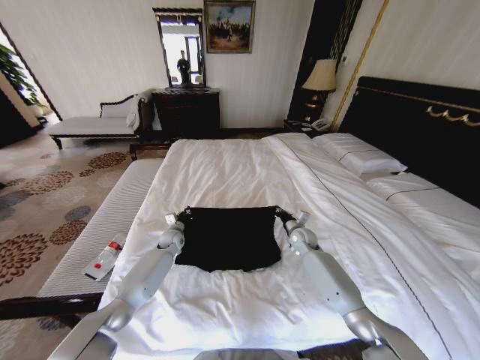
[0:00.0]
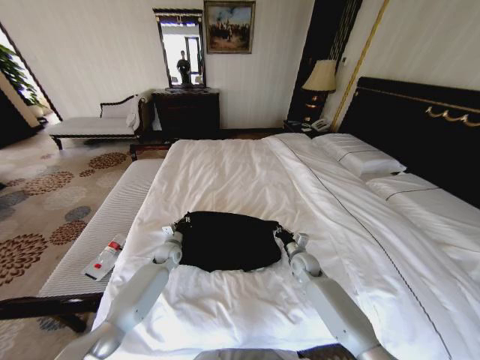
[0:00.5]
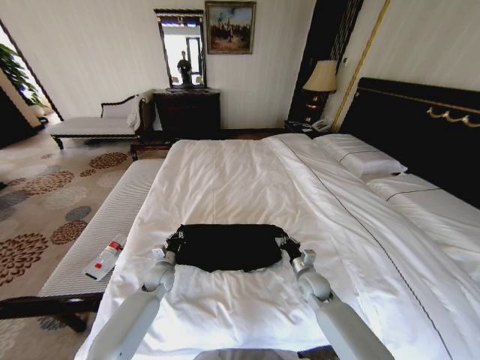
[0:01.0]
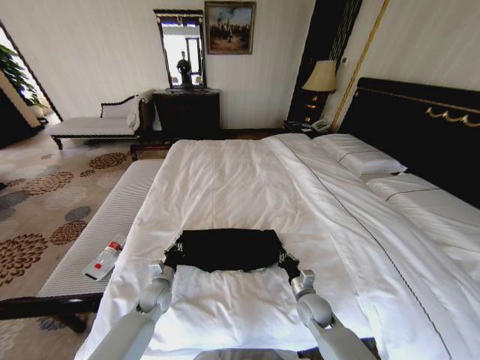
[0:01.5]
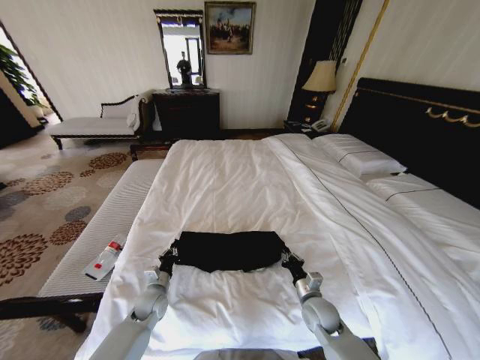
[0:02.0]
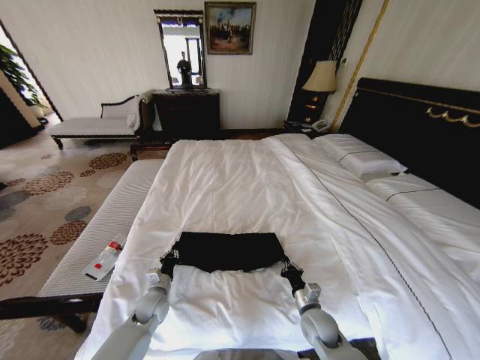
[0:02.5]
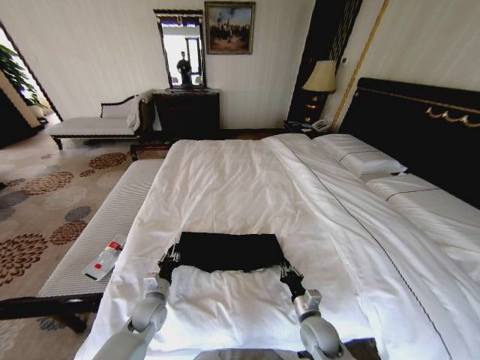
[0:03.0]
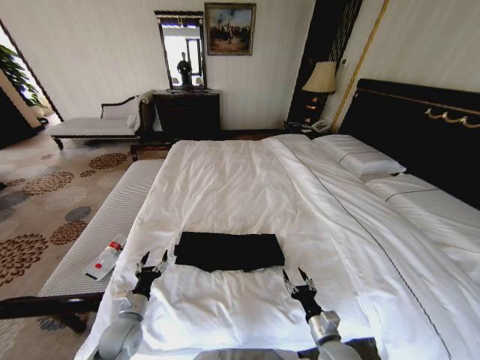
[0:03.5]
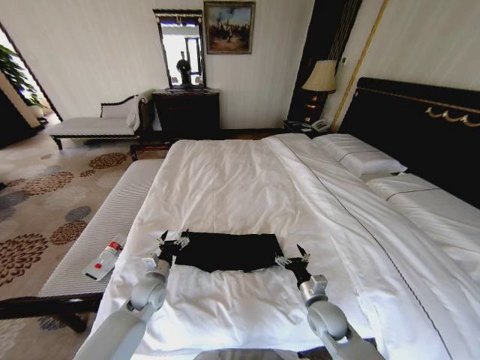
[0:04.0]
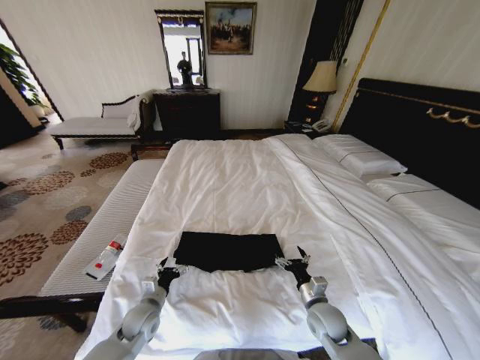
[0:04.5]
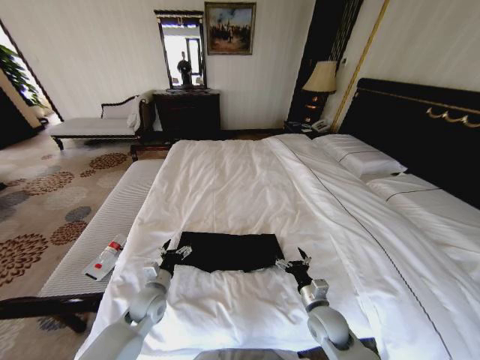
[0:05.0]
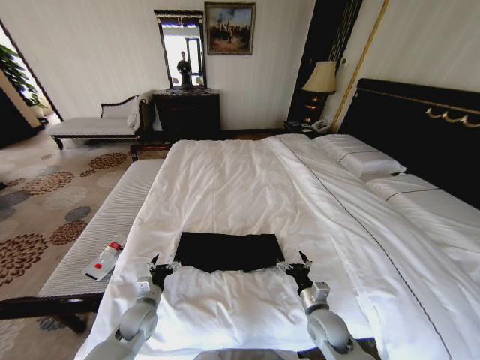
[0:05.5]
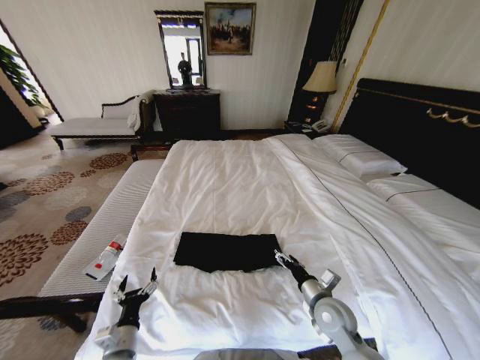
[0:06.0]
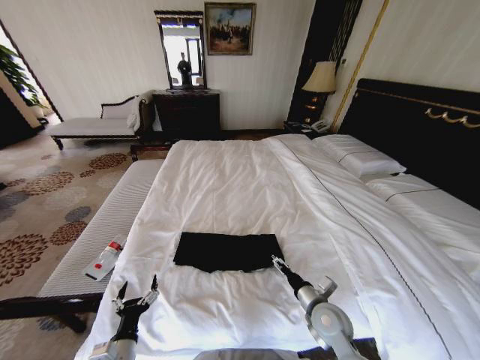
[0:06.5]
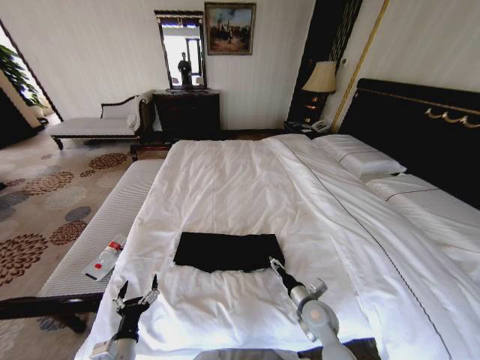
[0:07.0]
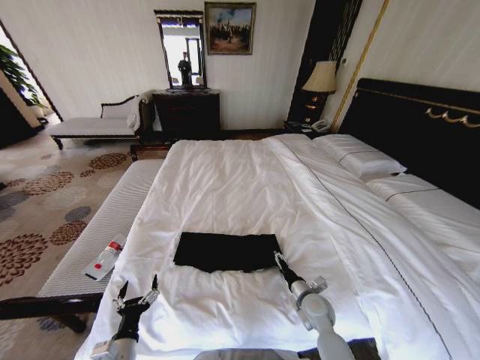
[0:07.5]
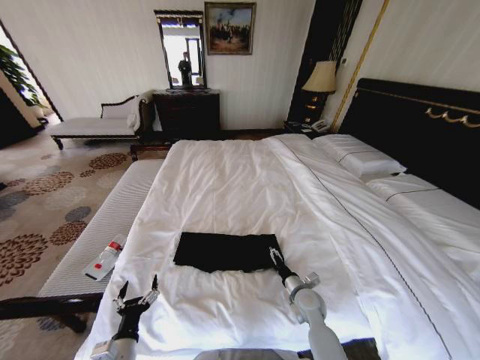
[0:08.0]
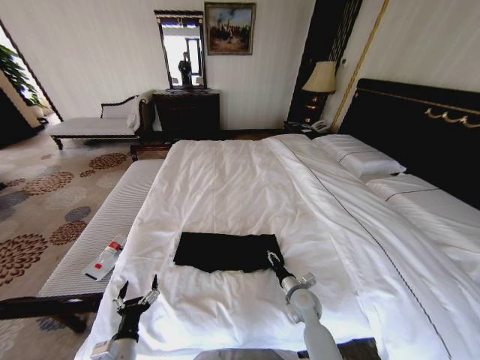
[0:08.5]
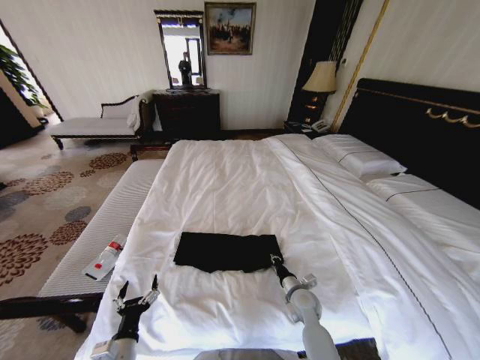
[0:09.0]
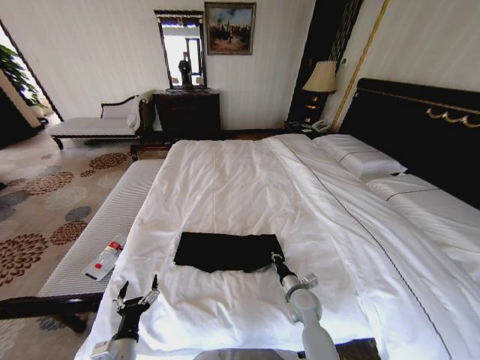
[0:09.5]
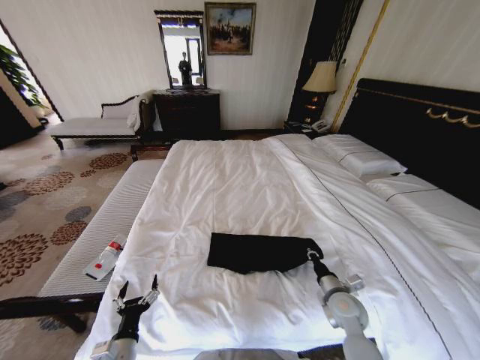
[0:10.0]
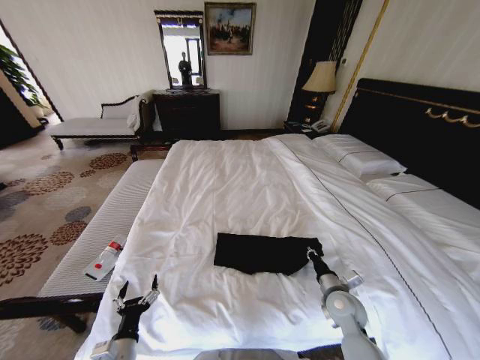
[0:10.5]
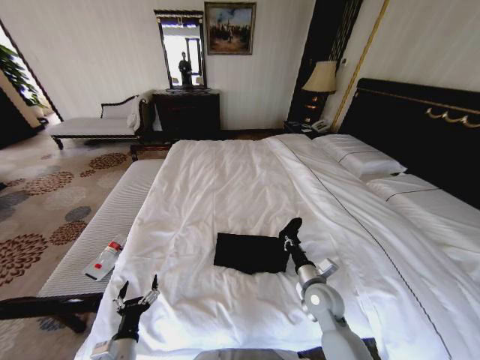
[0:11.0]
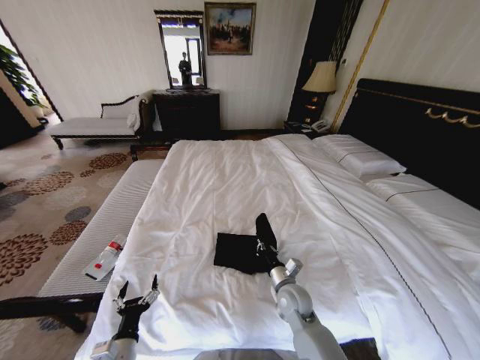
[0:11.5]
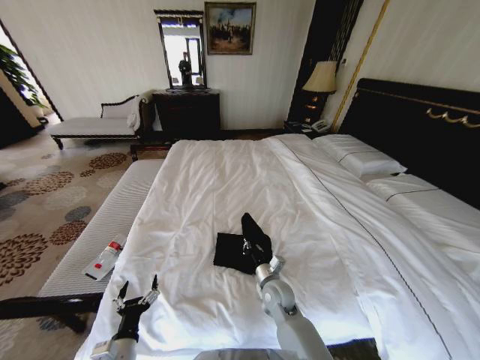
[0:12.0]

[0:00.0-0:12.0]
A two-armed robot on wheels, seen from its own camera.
Task of the whole recording: Fold the clothes on the bed.
0:00.0 to 0:02.0: The two grippers go approximately 20 cm backward.
0:02.0 to 0:04.0: The left gripper moves upward, some 5 cm, travels backward and back again, approximately 10 cm each way, and opens its fingers; the right gripper travels backward and back again, approximately 10 cm each way, and opens up.
0:04.0 to 0:06.0: The left gripper is displaced backward by approximately 20 cm, while the right gripper travels upward by roughly 5 cm.
0:06.0 to 0:08.0: The right gripper heads downward, covering about 10 cm.
0:08.0 to 0:10.0: The right gripper travels to the right by some 10 cm, and closes up.
0:10.0 to 0:12.0: The right gripper heads to the left, covering roughly 20 cm.

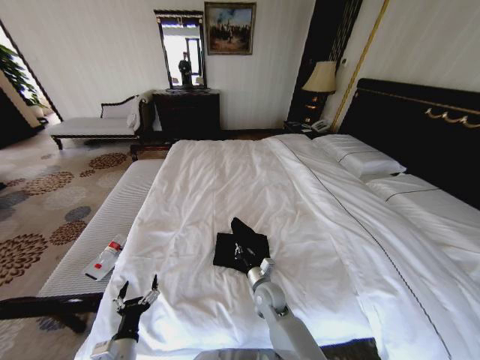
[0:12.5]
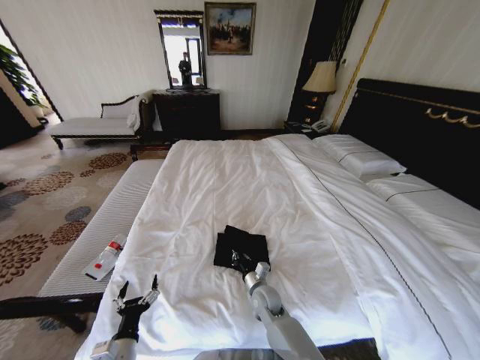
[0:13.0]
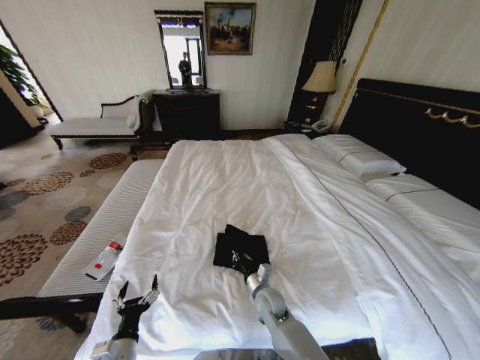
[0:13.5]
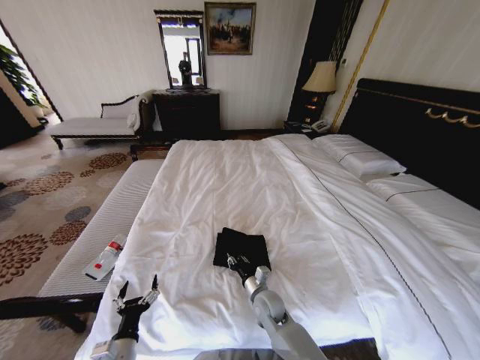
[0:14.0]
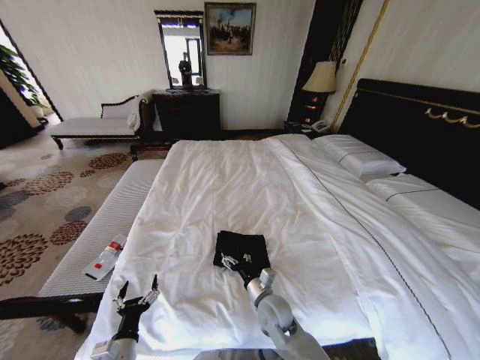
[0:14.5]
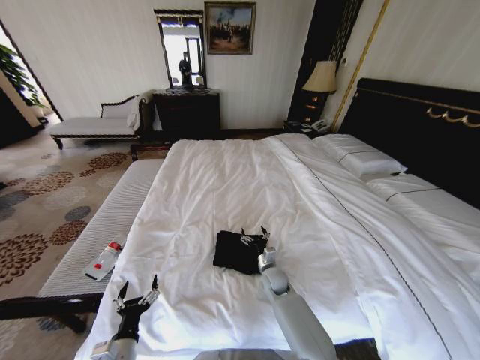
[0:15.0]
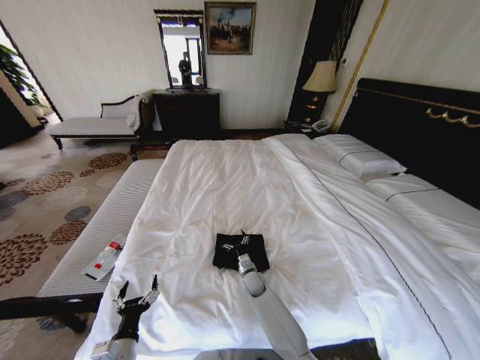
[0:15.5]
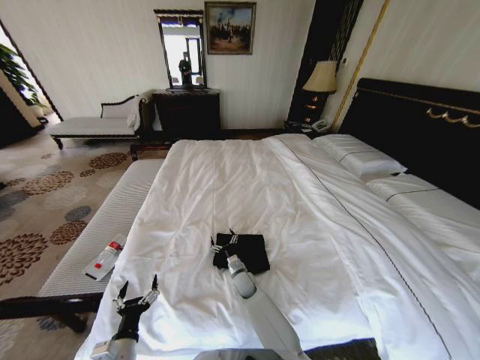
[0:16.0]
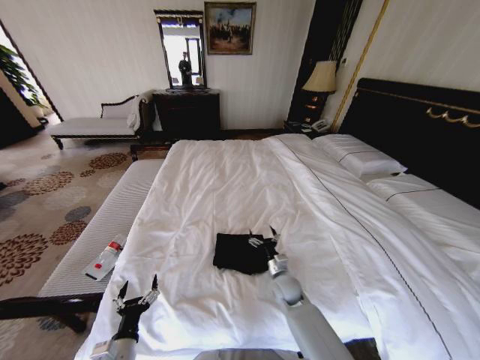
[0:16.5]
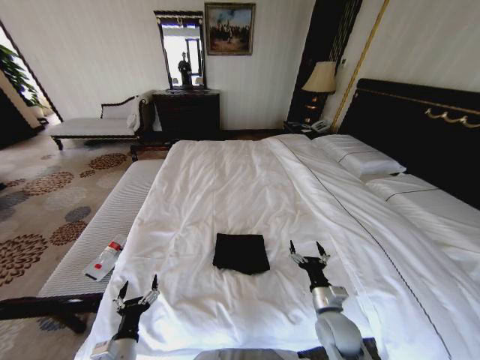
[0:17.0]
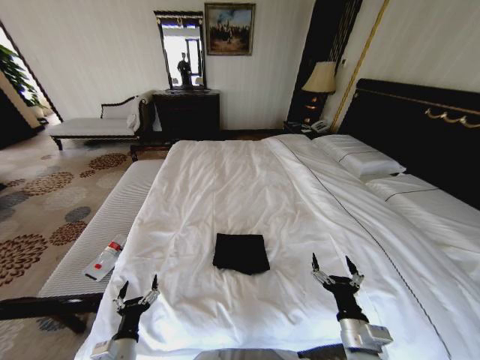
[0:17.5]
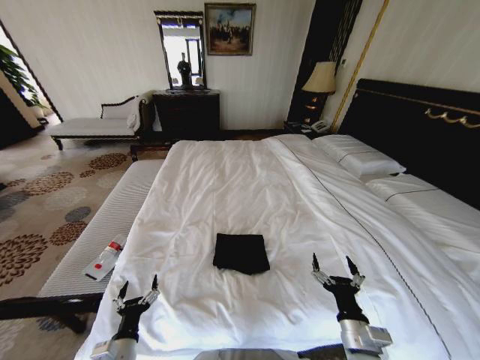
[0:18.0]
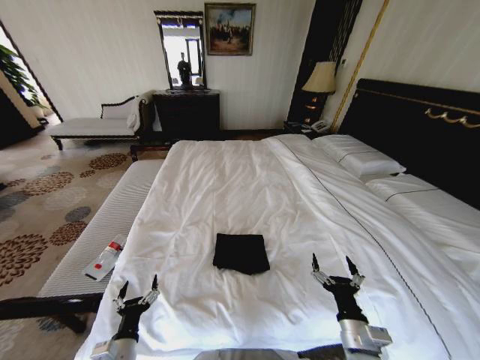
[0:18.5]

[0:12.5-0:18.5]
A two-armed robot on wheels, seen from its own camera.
Task of the whole recording: Fold the clothes on the bed.
0:12.5 to 0:14.5: The right gripper opens up.
0:14.5 to 0:16.5: The right gripper goes left and right, about 15 cm each way, reversing 2 times.
0:16.5 to 0:18.5: The right gripper goes approximately 25 cm backward, to the right and upward.

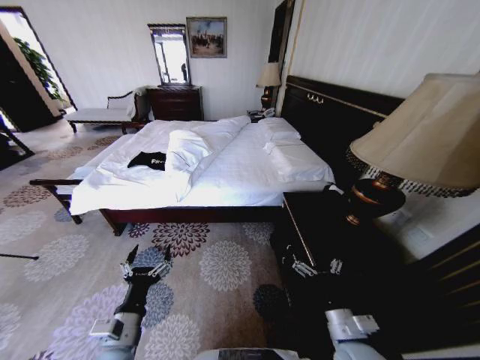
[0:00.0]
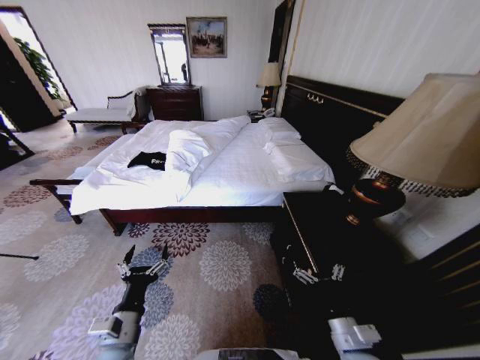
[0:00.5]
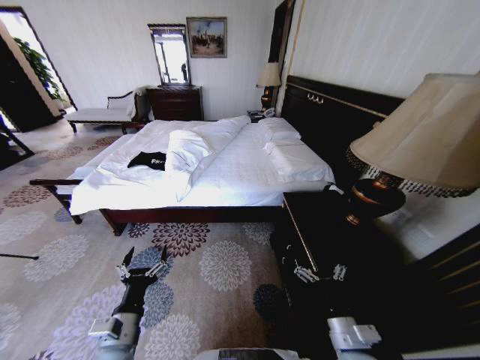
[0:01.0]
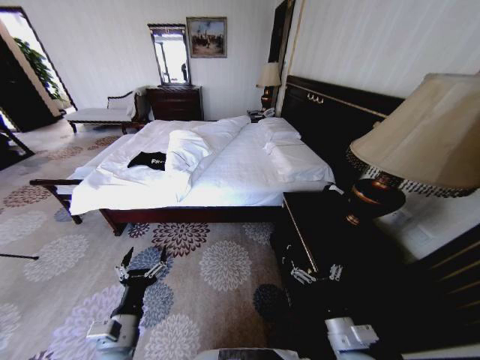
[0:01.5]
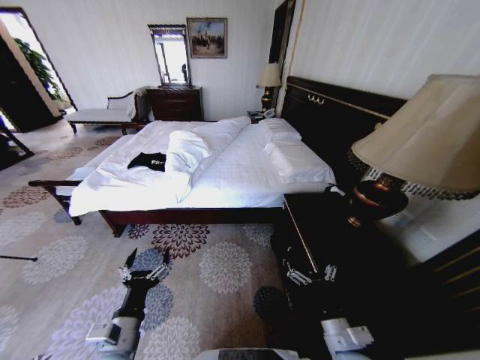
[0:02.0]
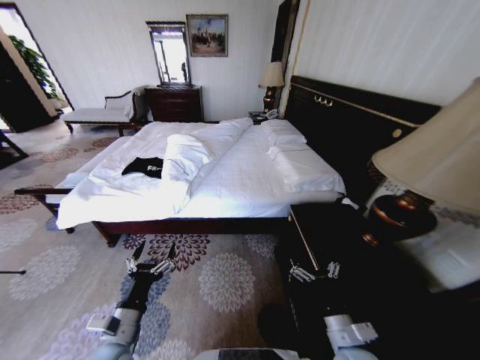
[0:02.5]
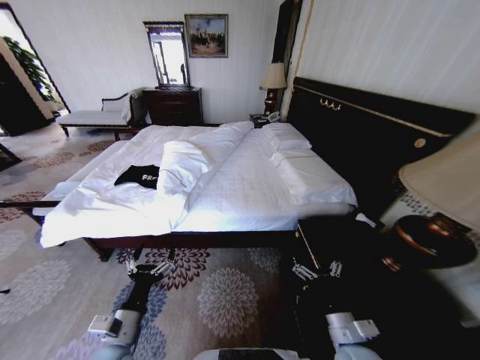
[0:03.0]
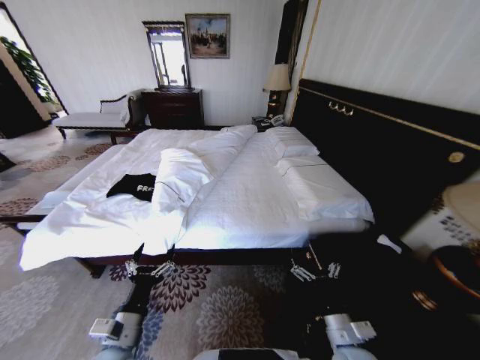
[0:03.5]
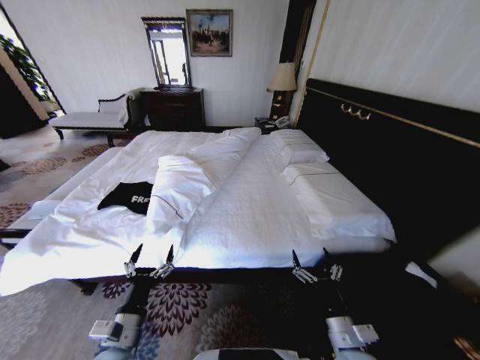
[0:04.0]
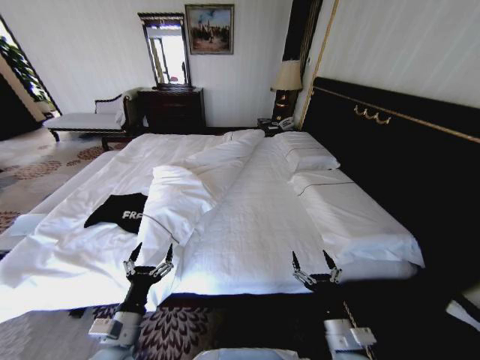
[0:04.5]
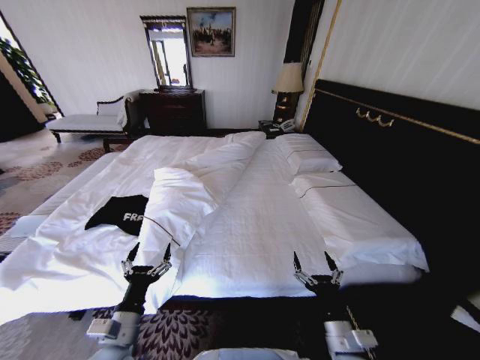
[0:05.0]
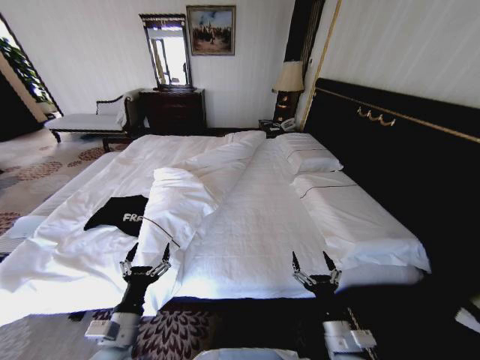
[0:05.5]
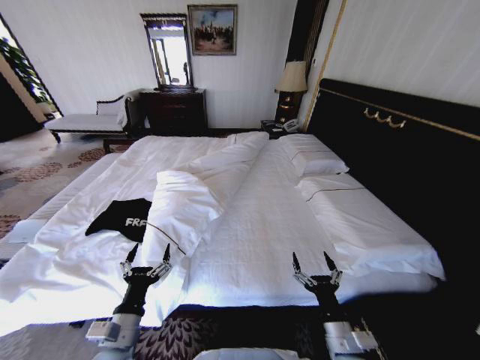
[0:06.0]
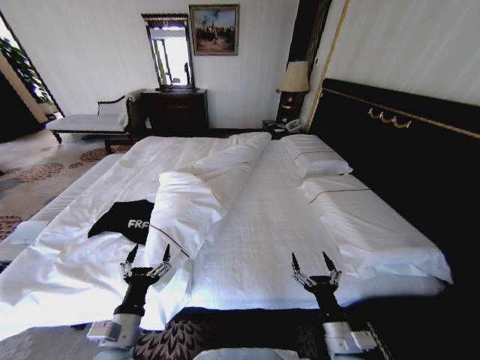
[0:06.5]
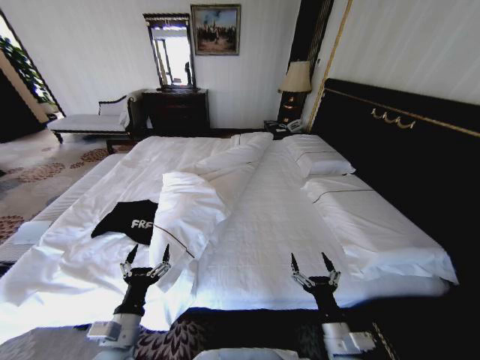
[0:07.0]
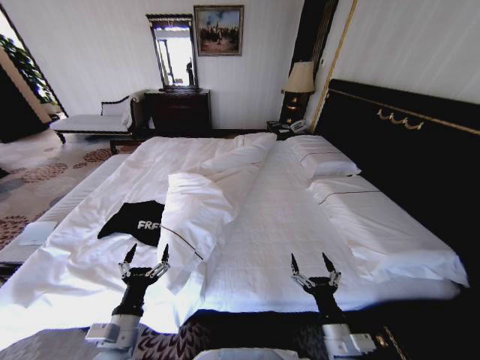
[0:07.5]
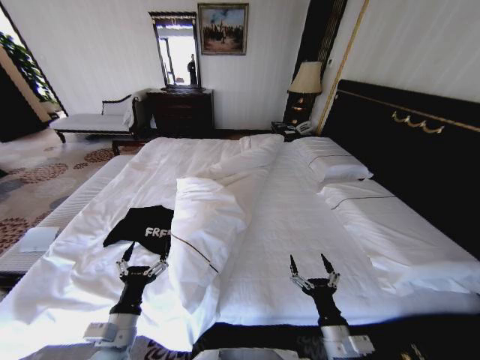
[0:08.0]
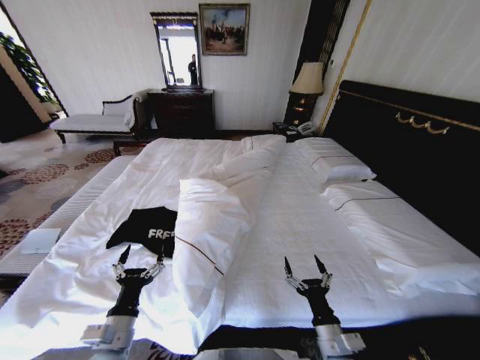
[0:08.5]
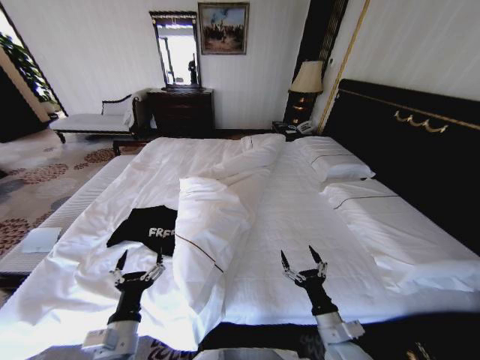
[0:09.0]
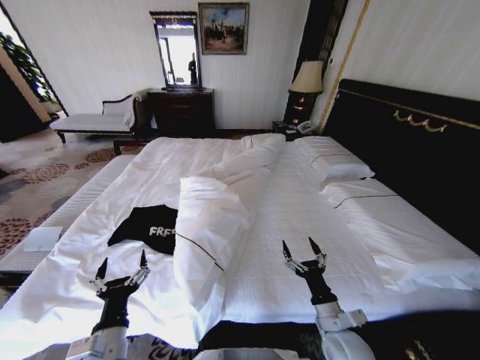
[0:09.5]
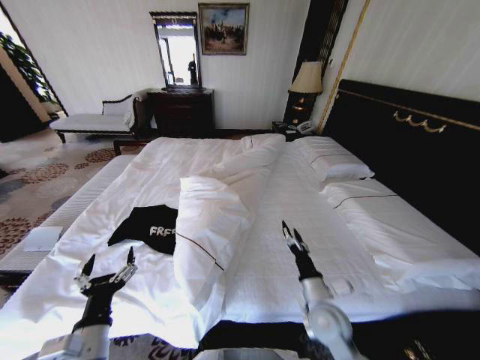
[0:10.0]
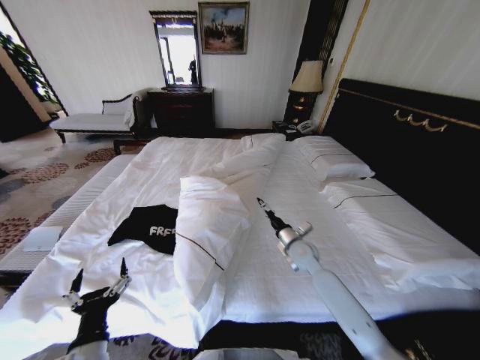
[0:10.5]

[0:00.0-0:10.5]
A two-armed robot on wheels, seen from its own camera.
Task of the whole recording: Fold the clothes on the bed.
0:08.5 to 0:10.5: The left gripper changes place by about 5 cm, while the right gripper goes about 30 cm forward.
